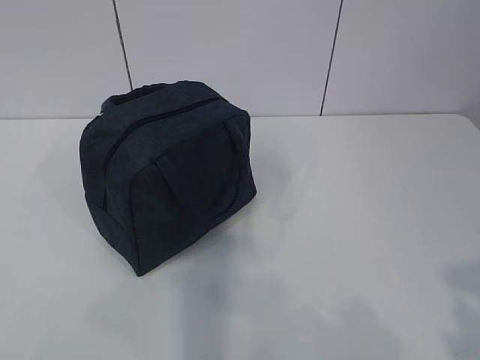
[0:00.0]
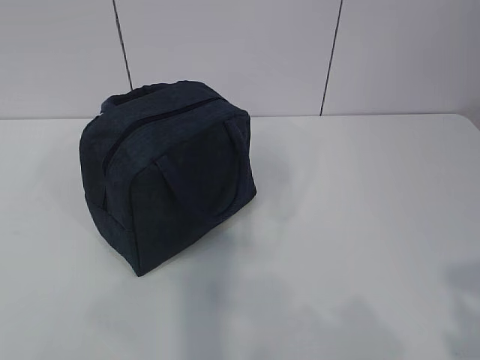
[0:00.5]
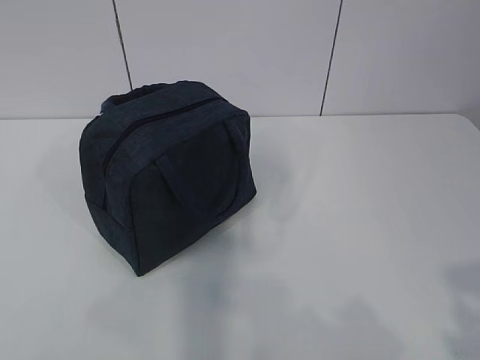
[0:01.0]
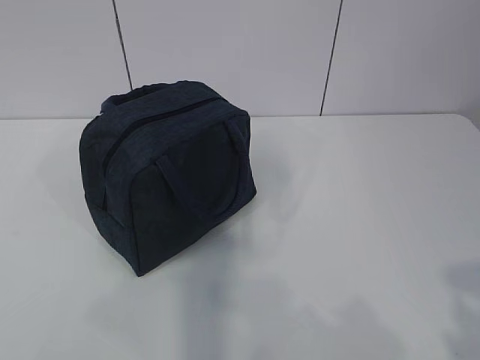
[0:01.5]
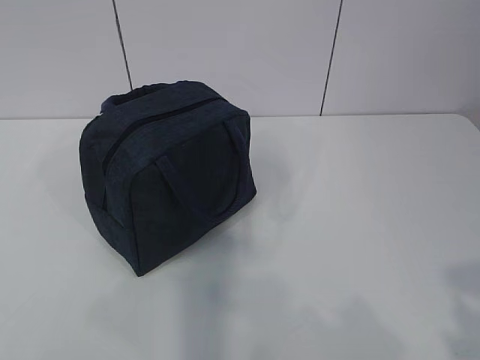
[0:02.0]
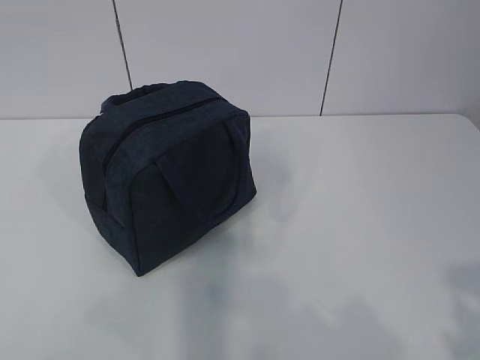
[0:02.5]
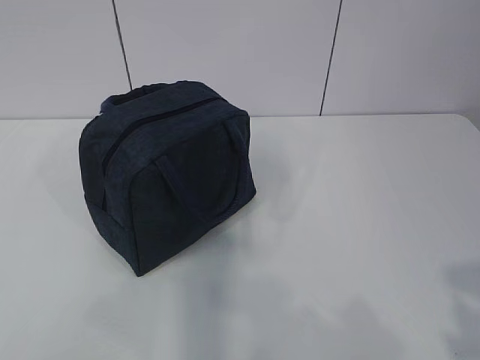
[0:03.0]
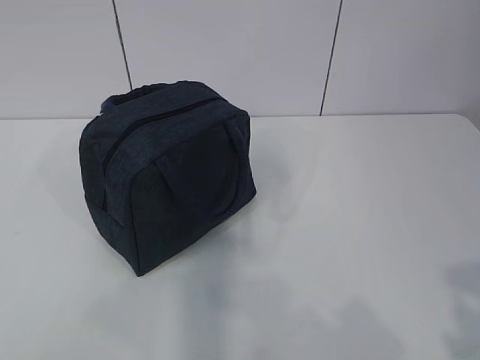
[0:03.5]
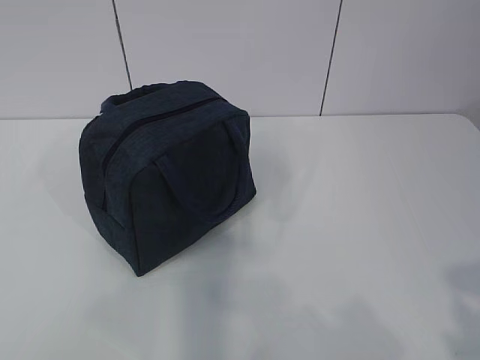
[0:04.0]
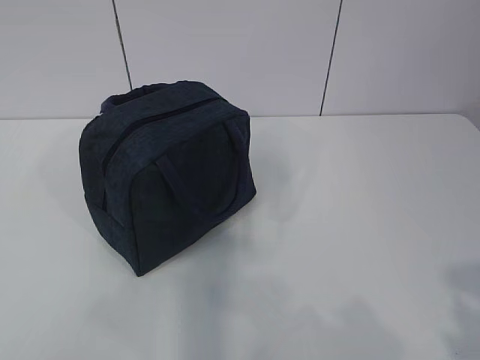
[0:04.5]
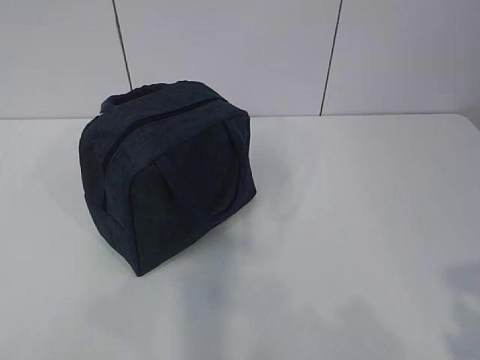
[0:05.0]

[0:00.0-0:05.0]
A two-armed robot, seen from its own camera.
0:00.0 to 0:05.0: Neither gripper changes place.

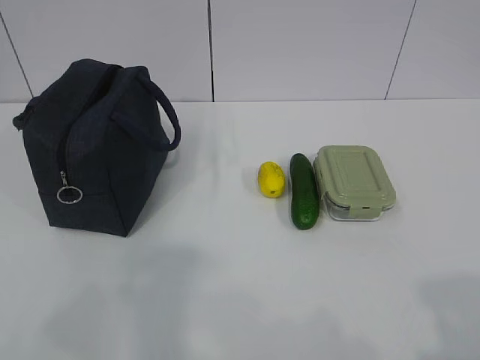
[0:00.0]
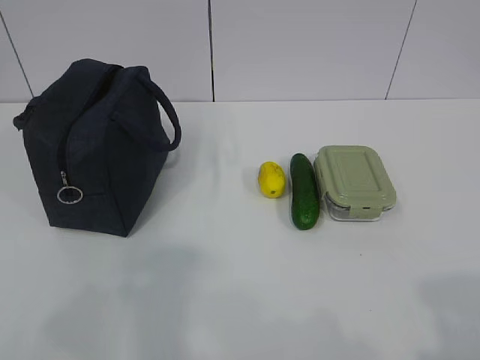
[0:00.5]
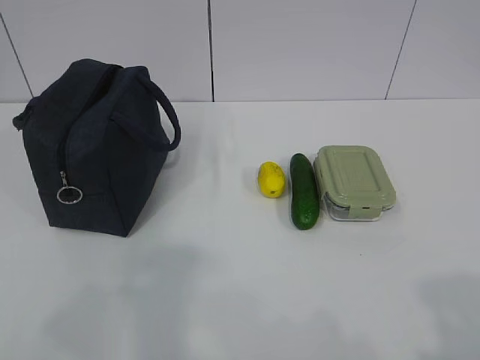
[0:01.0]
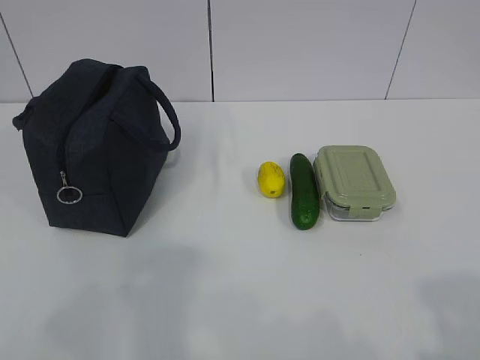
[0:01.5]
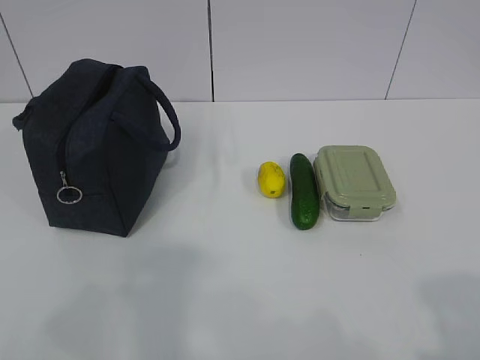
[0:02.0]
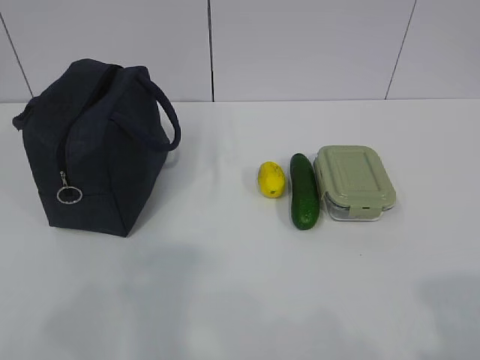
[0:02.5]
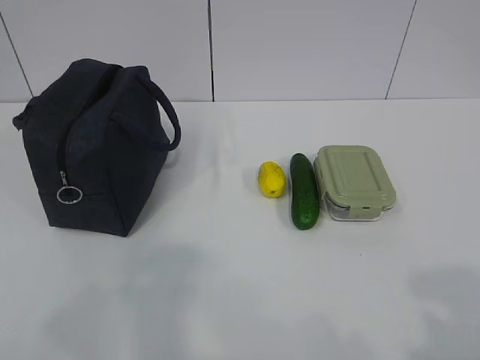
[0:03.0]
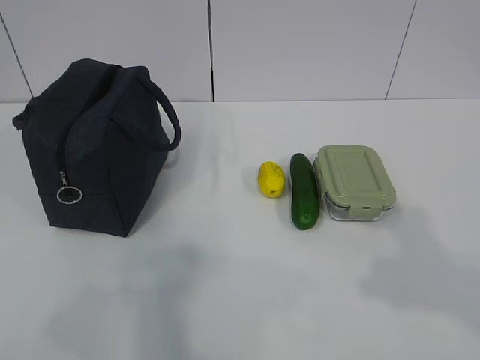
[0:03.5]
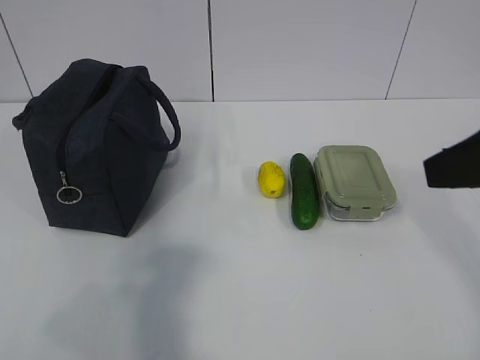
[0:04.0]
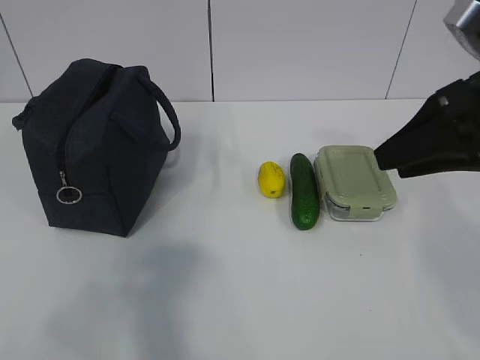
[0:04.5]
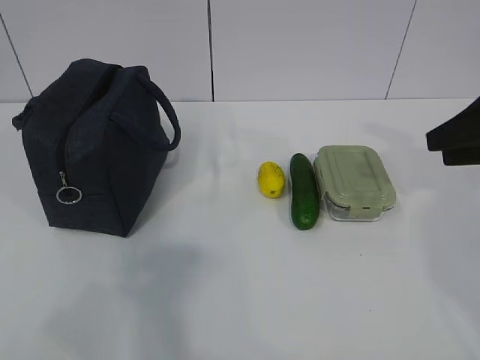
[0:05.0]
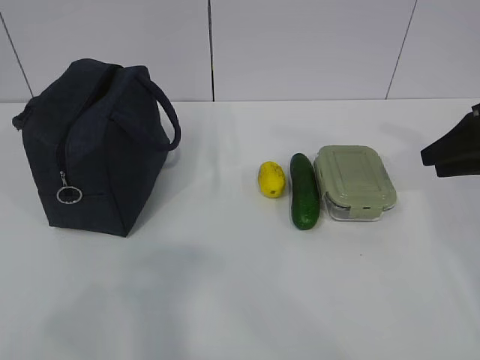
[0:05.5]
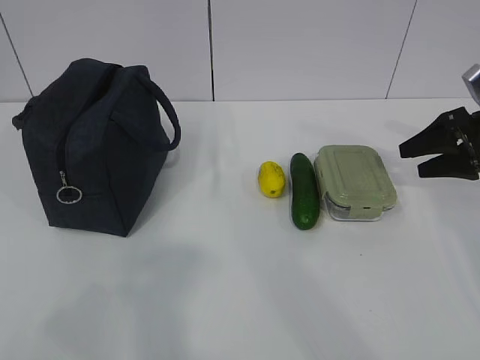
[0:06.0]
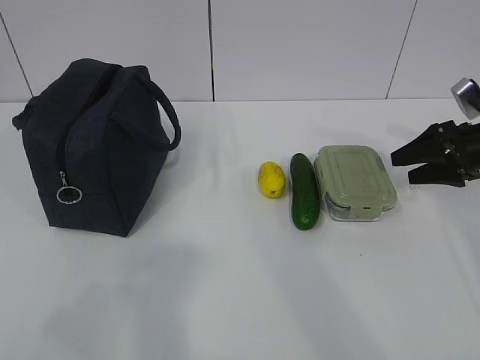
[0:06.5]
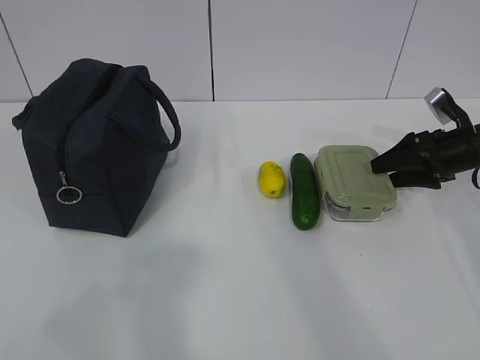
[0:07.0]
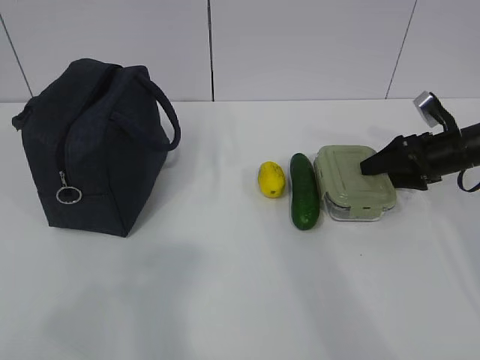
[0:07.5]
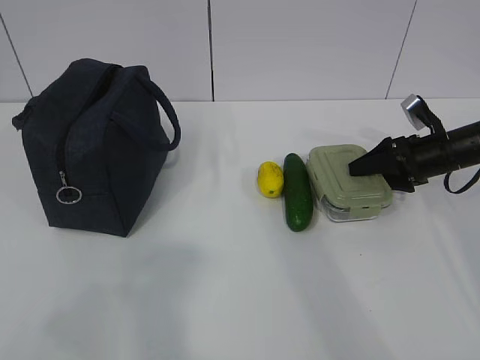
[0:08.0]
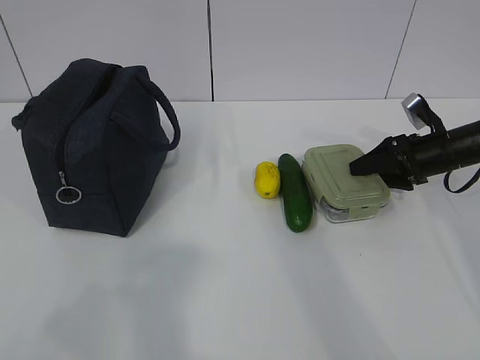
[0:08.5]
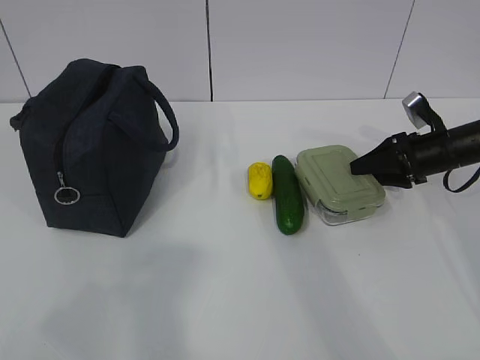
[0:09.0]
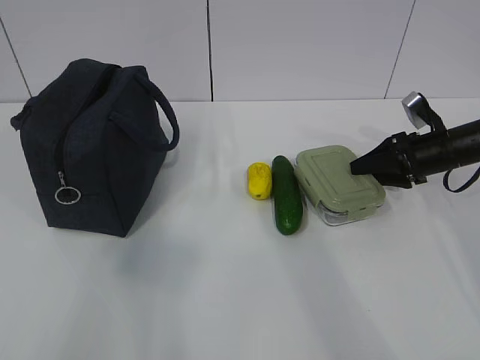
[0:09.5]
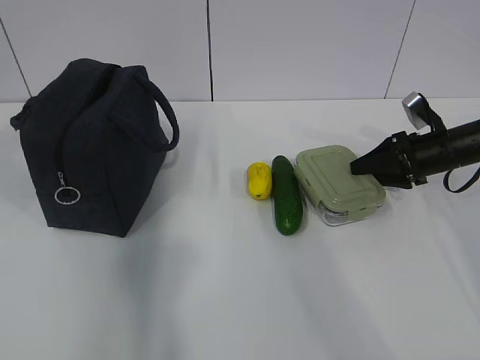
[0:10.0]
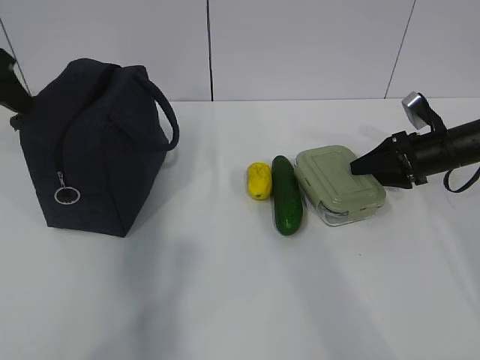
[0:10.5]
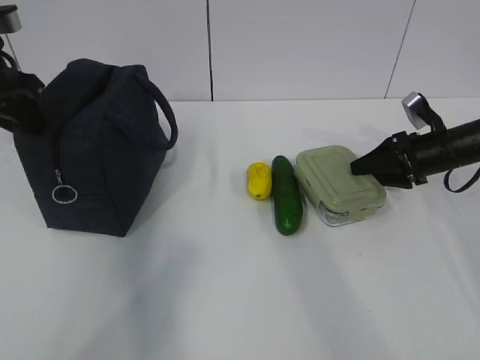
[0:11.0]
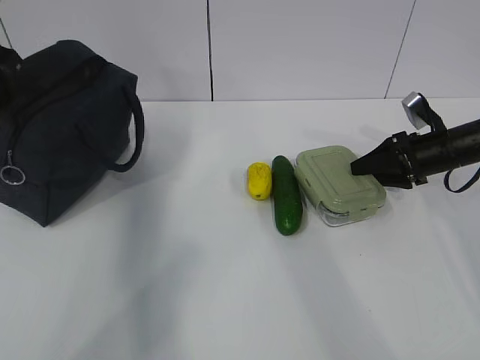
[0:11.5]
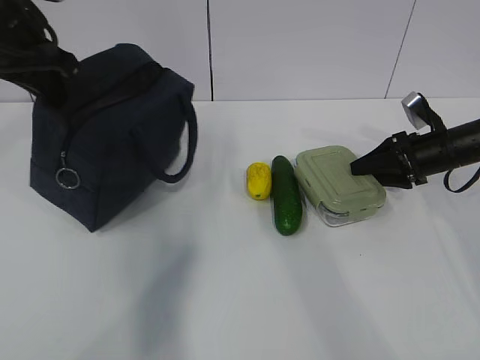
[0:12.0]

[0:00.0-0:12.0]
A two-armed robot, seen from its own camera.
Step, 0:00.0 to 0:11.0: Grab the lunch box with your right hand.
0:02.0 to 0:04.0: The right gripper moves forward, roughly 20 cm.
0:04.0 to 0:06.0: The right gripper moves forward, downward and to the right, roughly 30 cm, and opens.
0:06.0 to 0:08.0: The right gripper moves downward and forward, roughly 10 cm.
0:08.0 to 0:10.0: The left gripper travels forward by roughly 20 cm.
0:10.0 to 0:12.0: The left gripper goes roughly 20 cm forward, and closes its fingers.

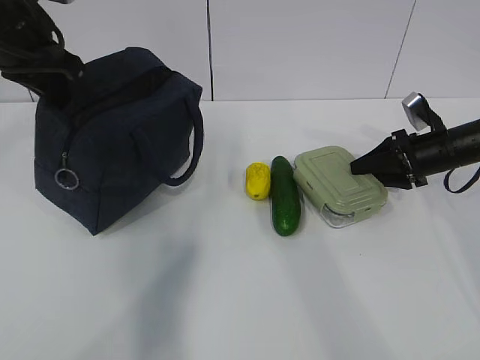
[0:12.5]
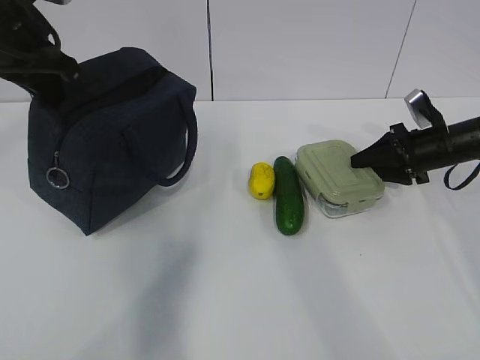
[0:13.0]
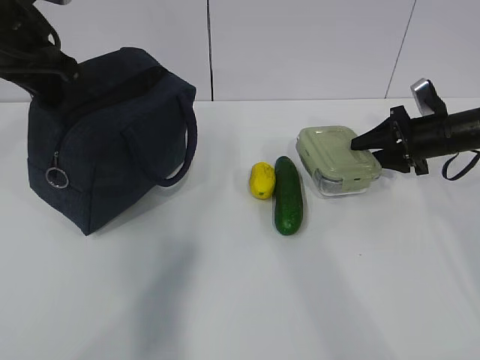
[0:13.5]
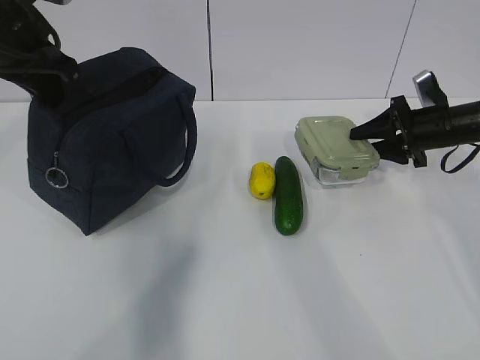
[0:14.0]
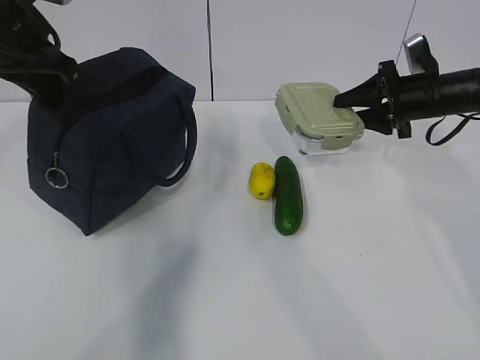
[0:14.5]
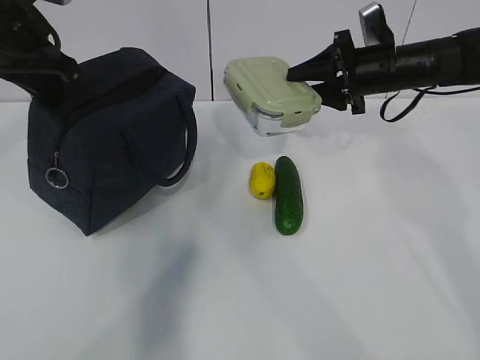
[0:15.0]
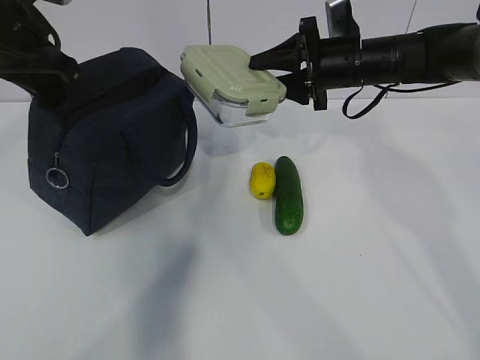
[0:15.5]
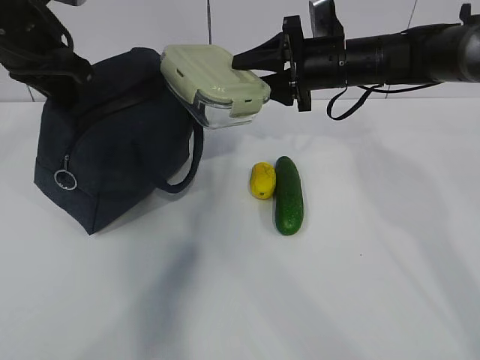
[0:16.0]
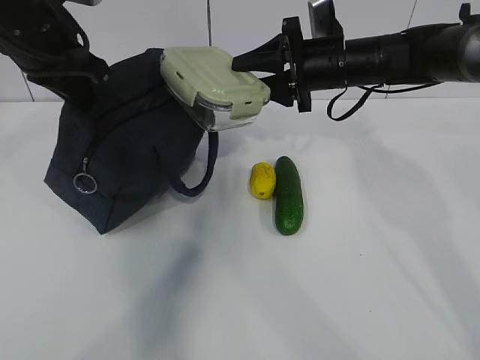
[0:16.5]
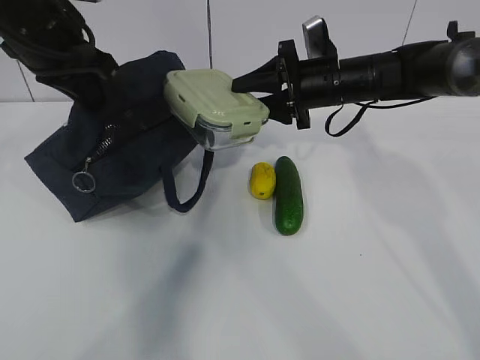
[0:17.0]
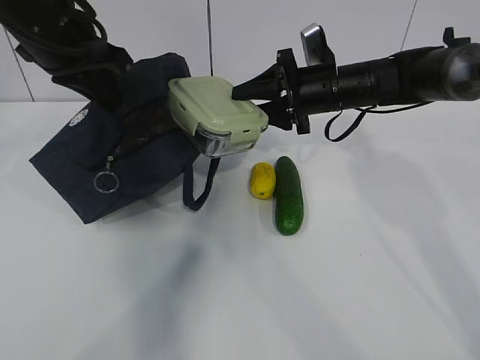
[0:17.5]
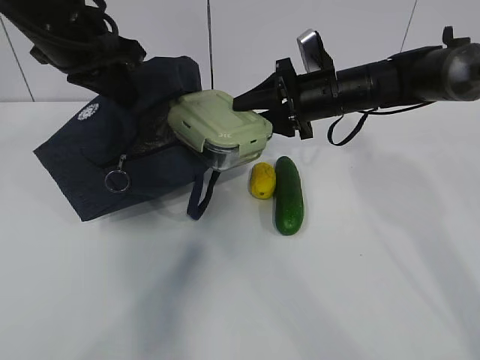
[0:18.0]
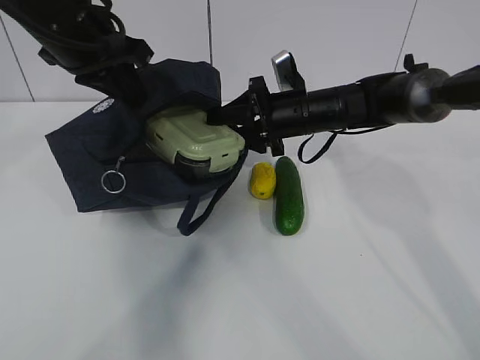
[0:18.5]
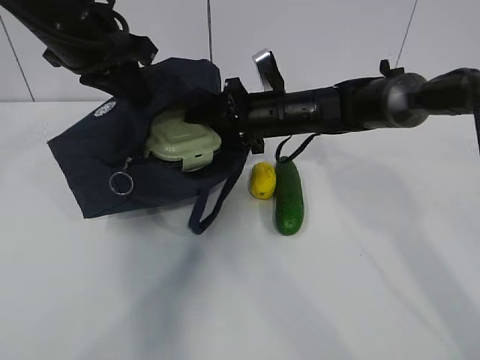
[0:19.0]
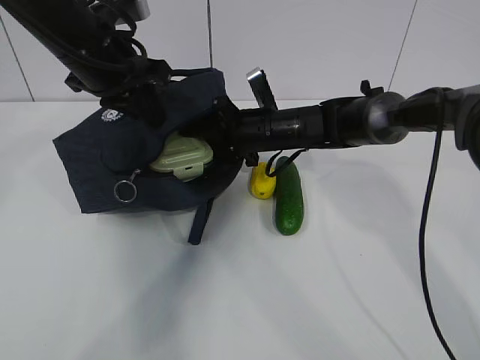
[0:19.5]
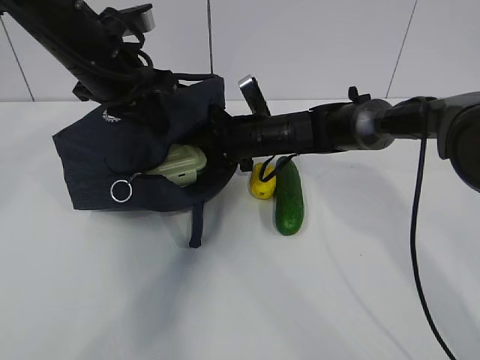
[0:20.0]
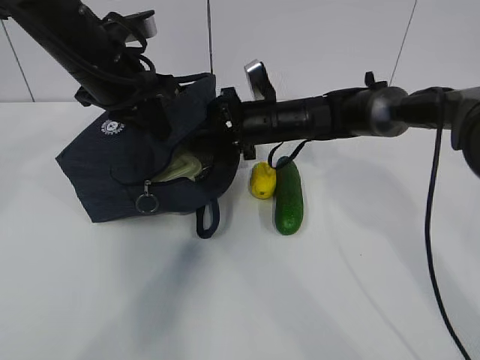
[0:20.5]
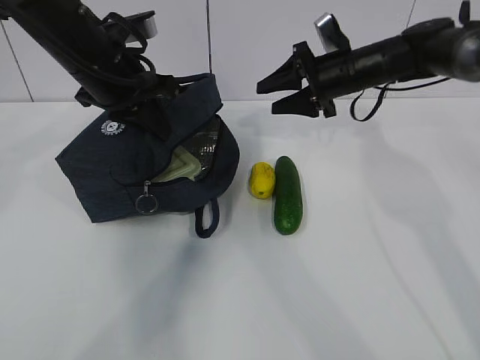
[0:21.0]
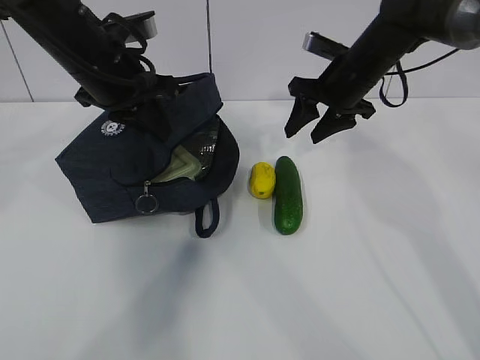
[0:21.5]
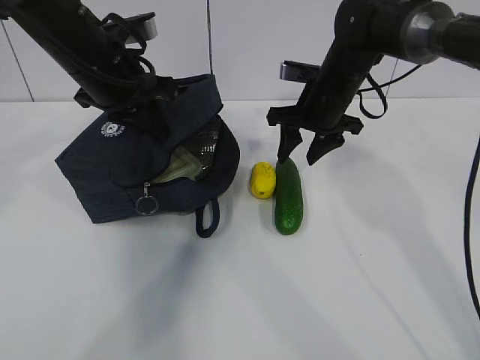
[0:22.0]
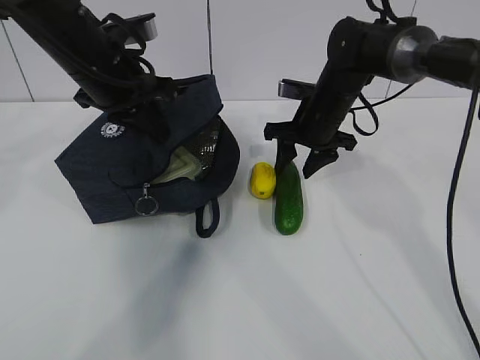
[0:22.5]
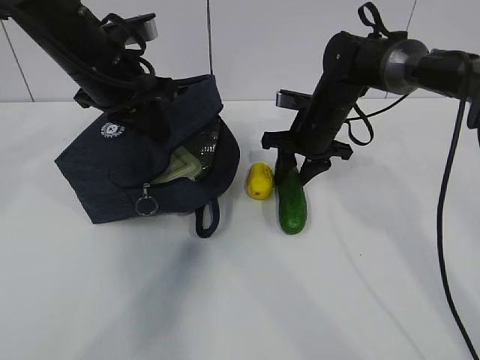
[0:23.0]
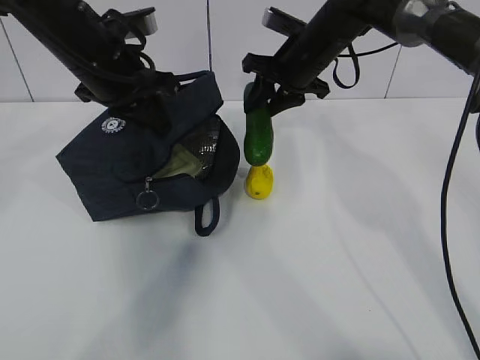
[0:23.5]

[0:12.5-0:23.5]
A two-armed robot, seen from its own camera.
Step, 0:14.0 to 0:17.0: Place it into the bag with your right hand.
Step, 0:17.5 to 0:19.0: Grab the cucumber with your right hand.
Step, 0:19.5 to 0:20.5: Place it into the bag with your right hand.
0:12.5 to 0:14.5: The right gripper shifts about 5 cm upward.
0:14.5 to 0:16.0: The right gripper goes approximately 15 cm to the left.
0:18.0 to 0:20.0: The right gripper shifts roughly 10 cm to the left and downward; the left gripper moves approximately 5 cm.
0:20.0 to 0:21.5: The right gripper travels to the right and upward by some 15 cm.
0:21.5 to 0:23.5: The right gripper is displaced to the left by some 5 cm, and travels downward and back again, some 5 cm each way.
